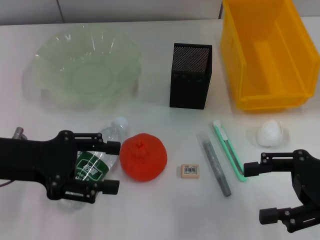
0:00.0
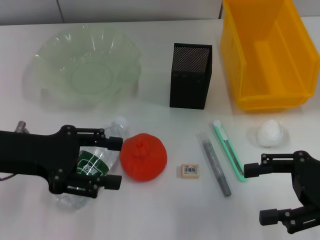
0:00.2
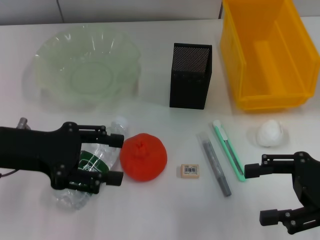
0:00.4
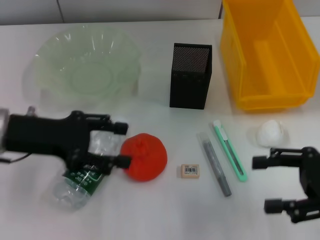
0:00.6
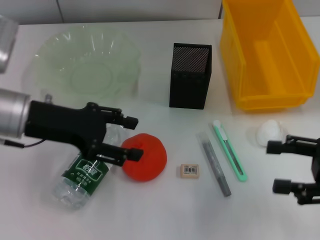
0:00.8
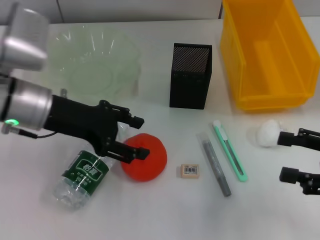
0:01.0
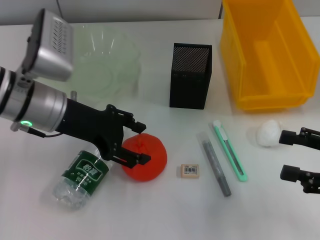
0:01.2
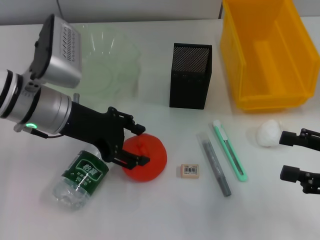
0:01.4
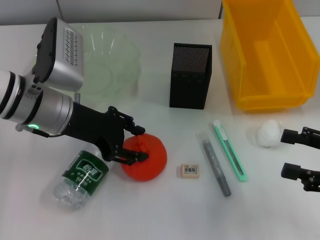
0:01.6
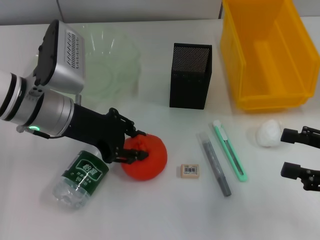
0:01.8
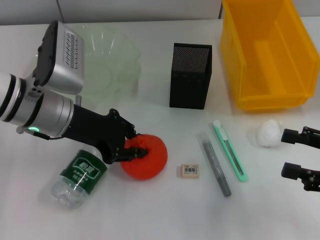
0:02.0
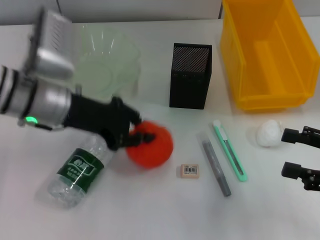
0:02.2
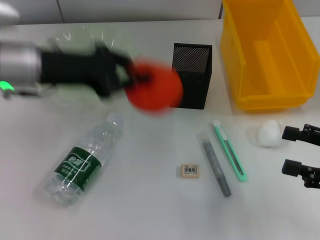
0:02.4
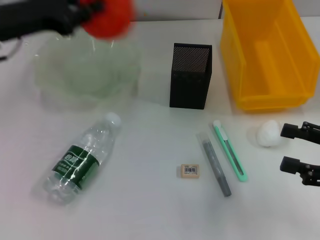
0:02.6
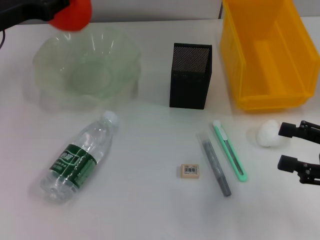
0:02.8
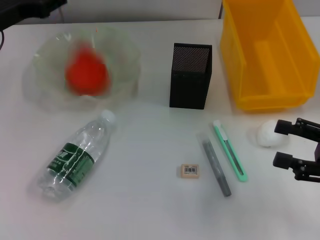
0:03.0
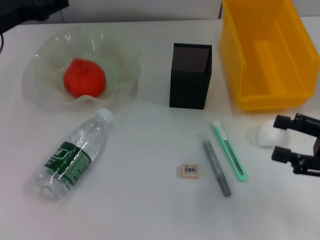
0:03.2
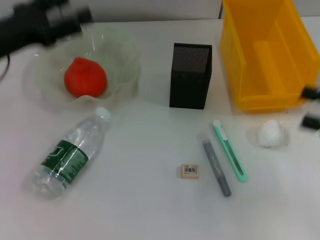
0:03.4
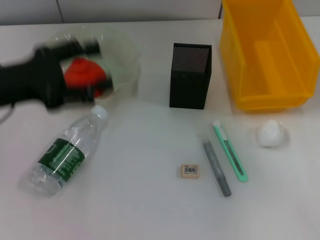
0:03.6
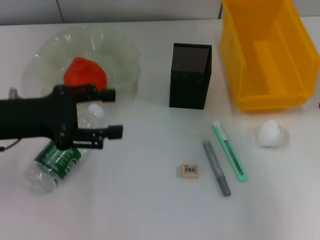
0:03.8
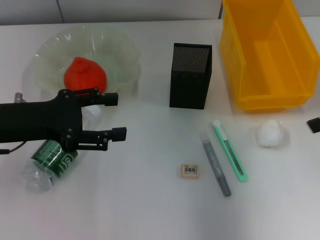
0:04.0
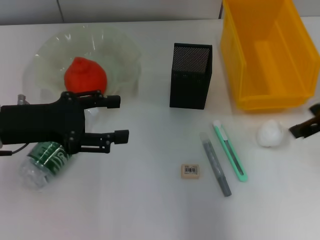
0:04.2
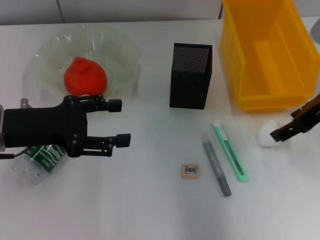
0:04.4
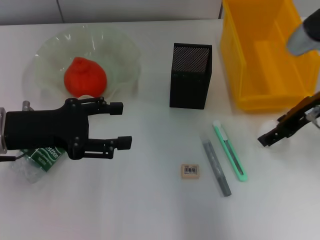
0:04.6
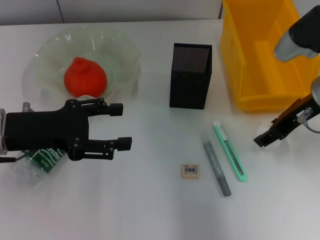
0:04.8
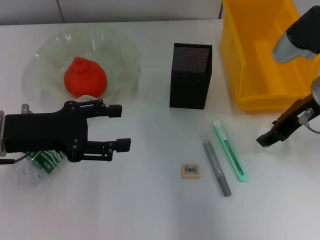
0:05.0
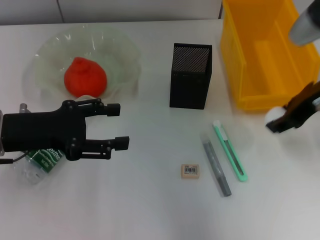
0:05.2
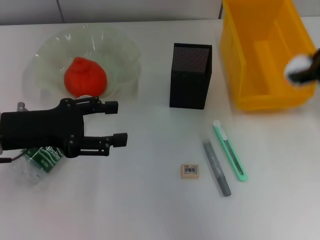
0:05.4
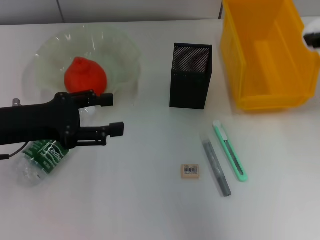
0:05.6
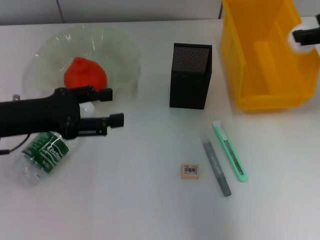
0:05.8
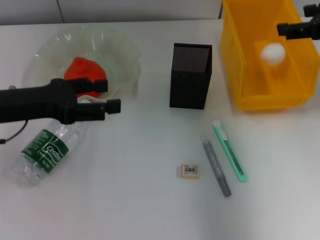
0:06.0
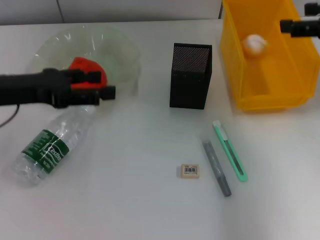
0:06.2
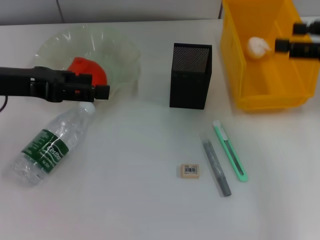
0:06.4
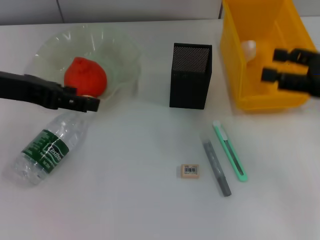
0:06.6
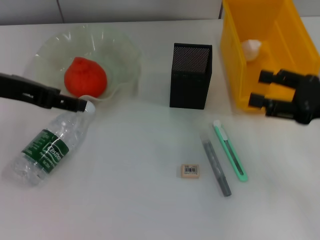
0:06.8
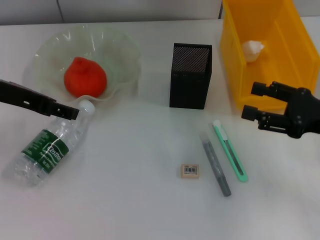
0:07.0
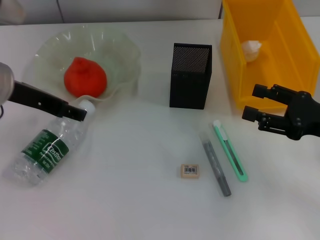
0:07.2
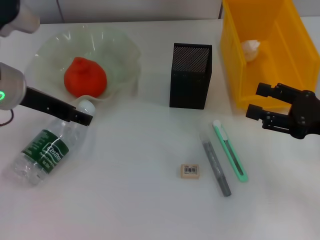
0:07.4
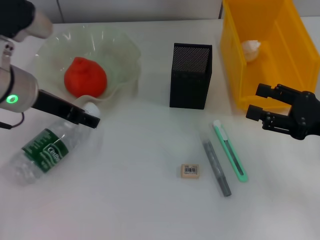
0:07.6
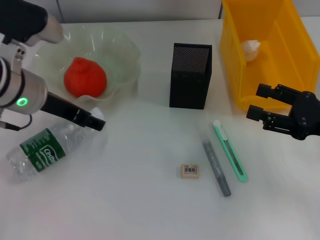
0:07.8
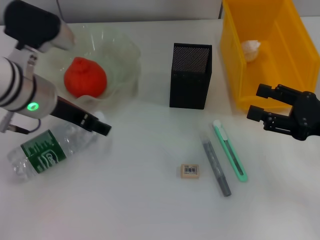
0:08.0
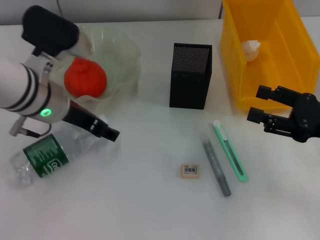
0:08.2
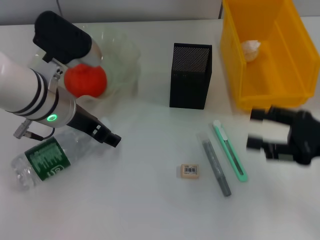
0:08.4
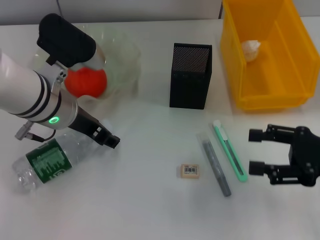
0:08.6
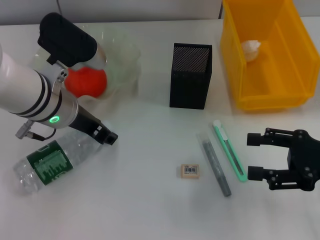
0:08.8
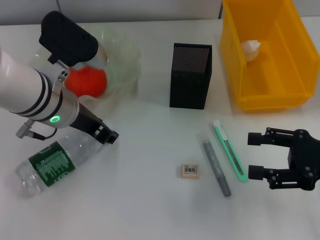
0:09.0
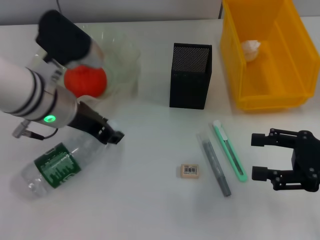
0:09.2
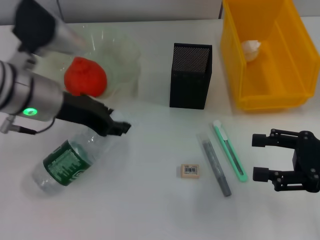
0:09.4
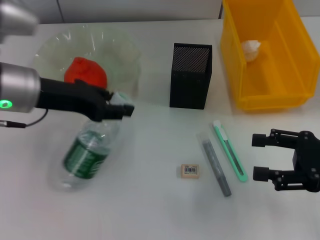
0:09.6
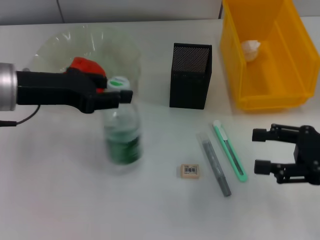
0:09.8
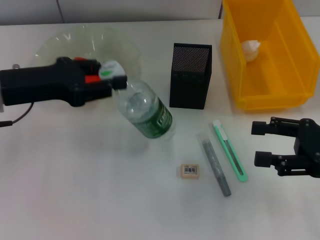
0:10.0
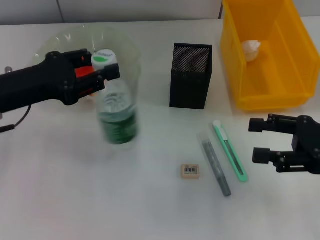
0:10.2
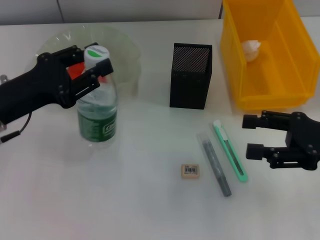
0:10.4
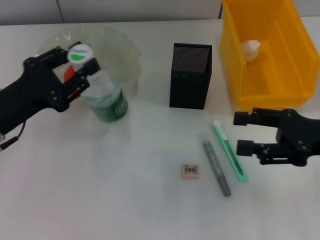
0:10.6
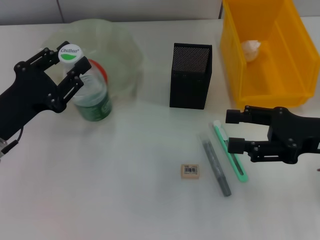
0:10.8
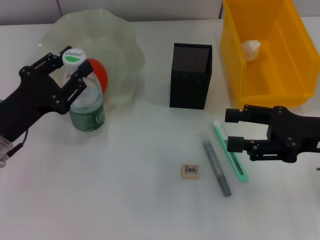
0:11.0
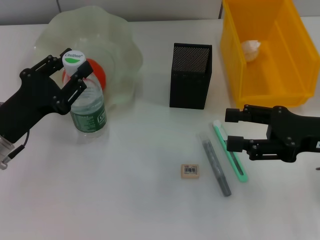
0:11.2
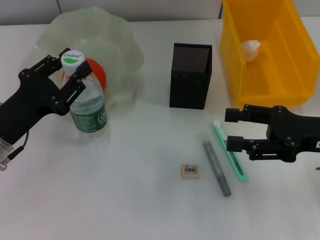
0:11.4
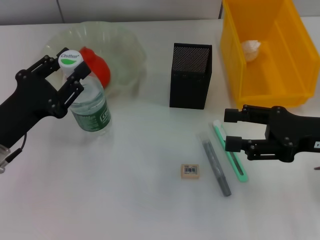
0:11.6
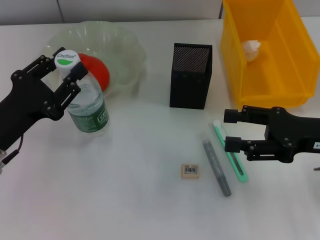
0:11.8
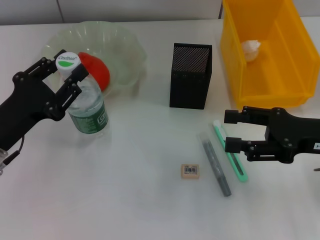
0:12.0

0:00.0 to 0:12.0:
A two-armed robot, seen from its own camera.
Step, 0:00.0 to 0:01.6: Grab the orange with the left hand.
Step, 0:01.8 to 0:03.2: Place the orange into the fruit bowl with the left hand.
Step, 0:03.6 to 0:04.8: Grab the paper ball with the right hand.
Step, 0:05.0 to 0:06.2: Place the paper ball into the trash can with the right hand.
Step, 0:06.6 to 0:08.8: Grab the water bottle with the left hand.
0:00.0 to 0:01.6: The left gripper moves to the right and forward, approximately 10 cm. The right gripper ends up some 5 cm from where it was.
0:01.6 to 0:03.0: The left gripper heads to the left, covering approximately 10 cm, and closes its fingers.
0:03.0 to 0:04.4: The left gripper shifts some 10 cm backward, and opens up, while the right gripper travels forward, upward and to the left by approximately 15 cm.
0:04.4 to 0:06.0: The right gripper goes some 5 cm upward.
0:06.0 to 0:07.6: The left gripper goes roughly 5 cm to the right, and moves about 10 cm upward and comes back, while the right gripper heads downward and backward, covering roughly 15 cm.
0:07.6 to 0:09.0: The left gripper heads to the right, covering roughly 5 cm, and closes up.
0:09.0 to 0:10.4: The left gripper is displaced to the left by some 10 cm.
0:10.4 to 0:12.0: The left gripper ends up roughly 5 cm from where it was.

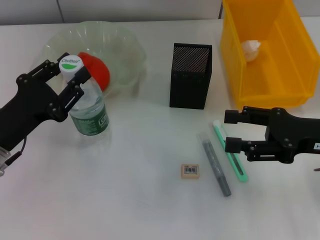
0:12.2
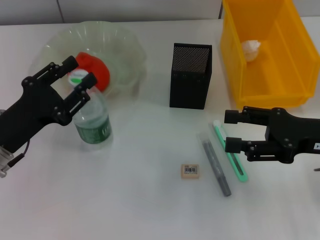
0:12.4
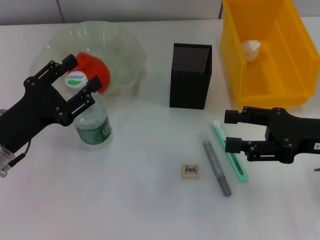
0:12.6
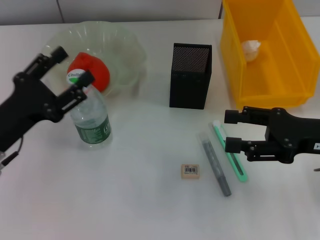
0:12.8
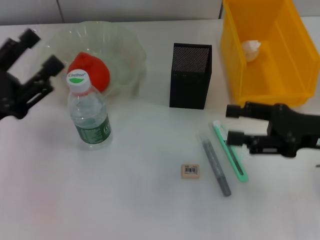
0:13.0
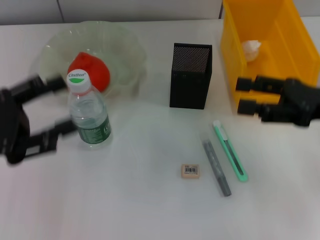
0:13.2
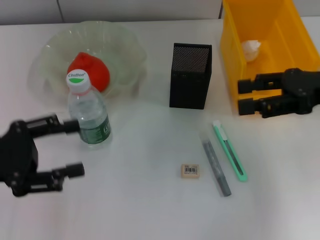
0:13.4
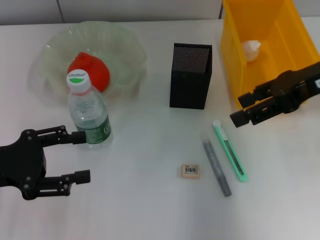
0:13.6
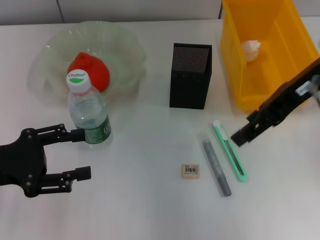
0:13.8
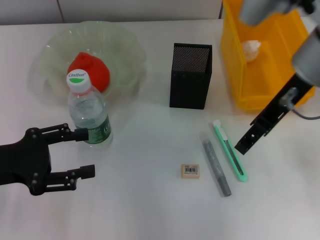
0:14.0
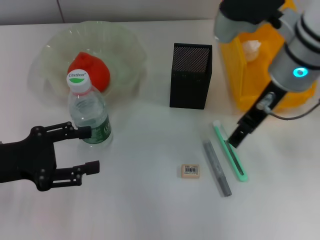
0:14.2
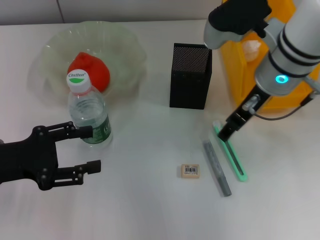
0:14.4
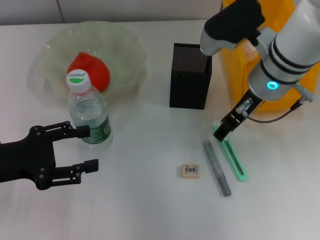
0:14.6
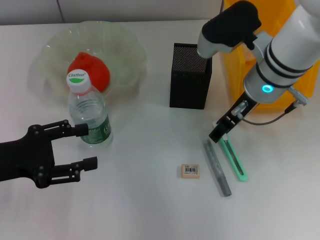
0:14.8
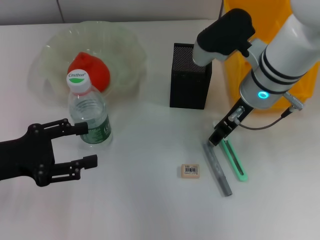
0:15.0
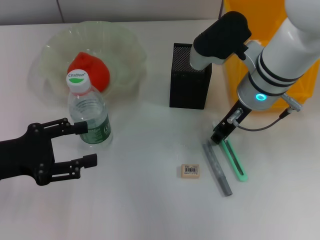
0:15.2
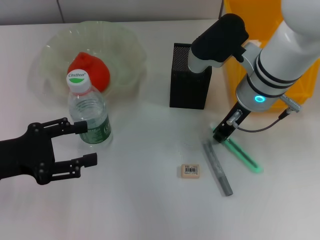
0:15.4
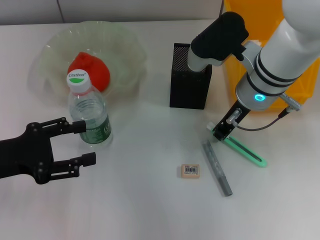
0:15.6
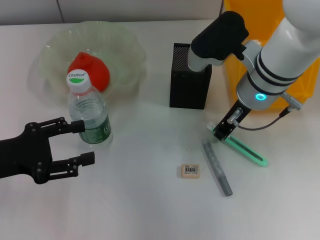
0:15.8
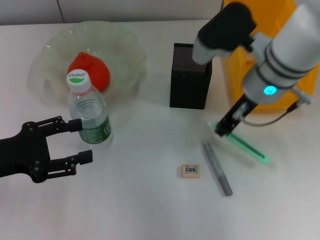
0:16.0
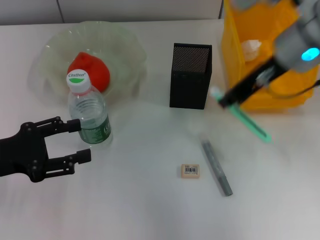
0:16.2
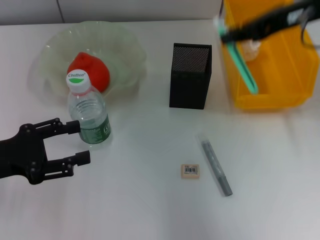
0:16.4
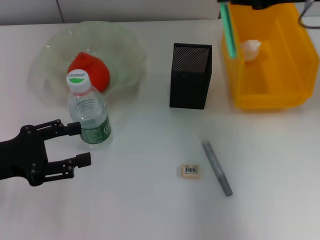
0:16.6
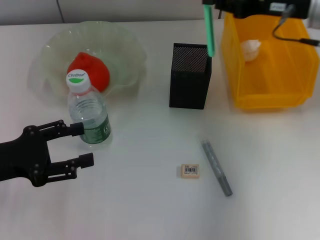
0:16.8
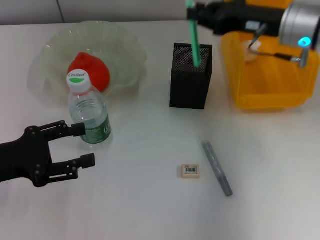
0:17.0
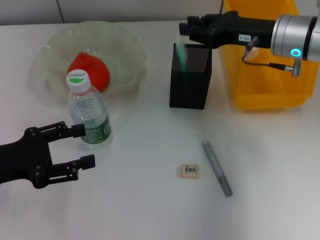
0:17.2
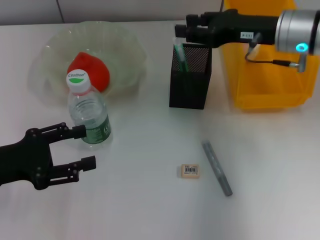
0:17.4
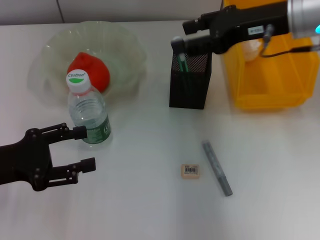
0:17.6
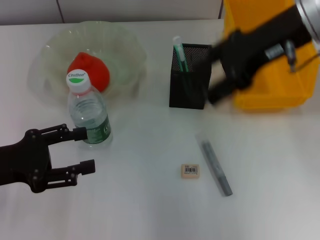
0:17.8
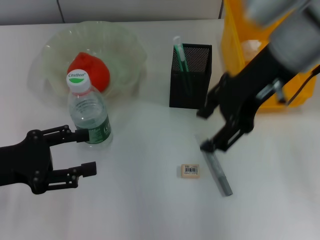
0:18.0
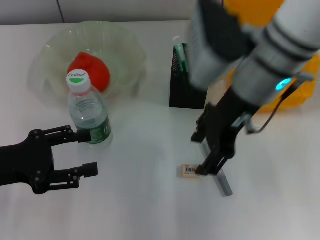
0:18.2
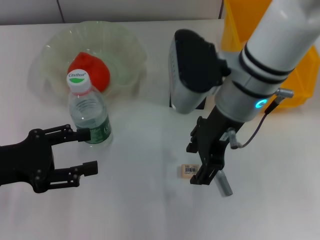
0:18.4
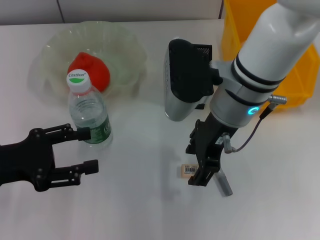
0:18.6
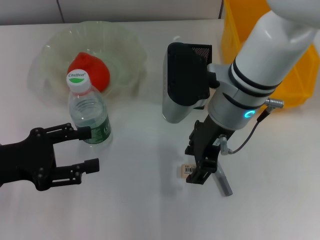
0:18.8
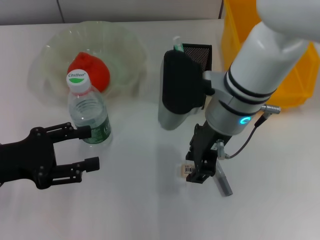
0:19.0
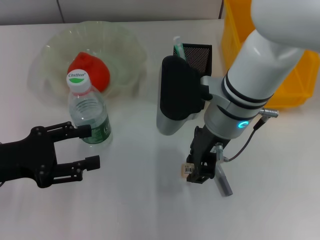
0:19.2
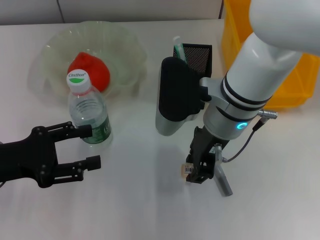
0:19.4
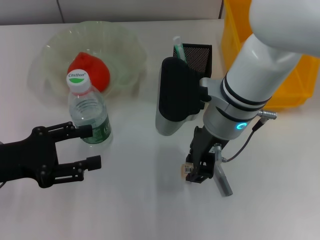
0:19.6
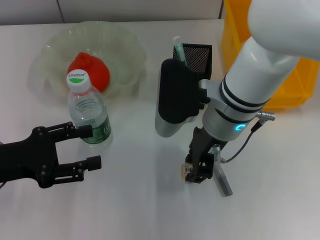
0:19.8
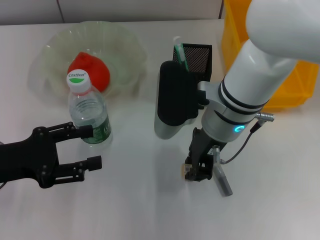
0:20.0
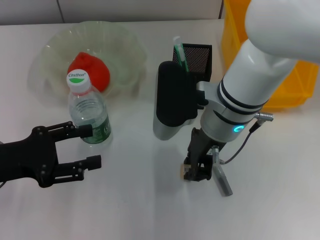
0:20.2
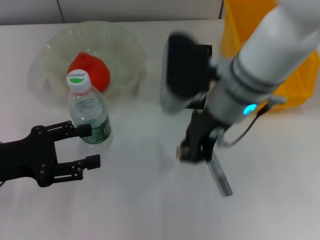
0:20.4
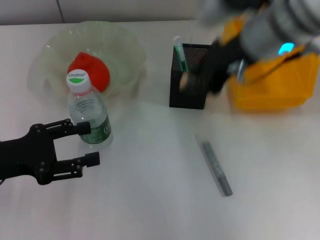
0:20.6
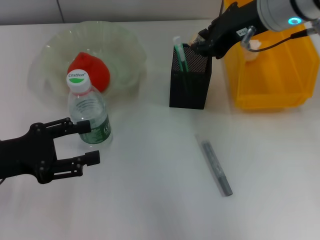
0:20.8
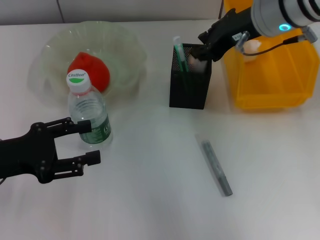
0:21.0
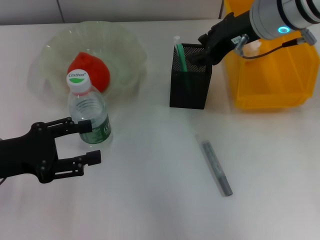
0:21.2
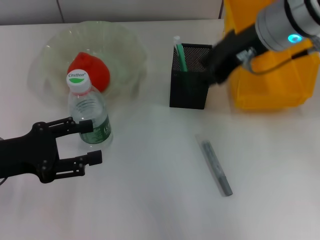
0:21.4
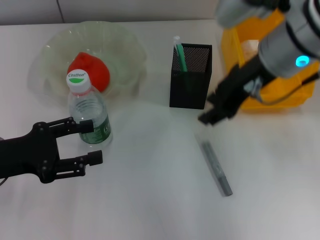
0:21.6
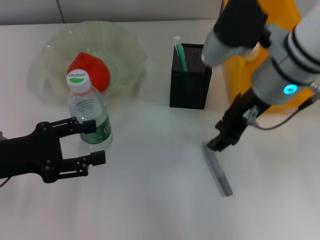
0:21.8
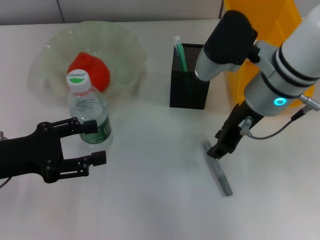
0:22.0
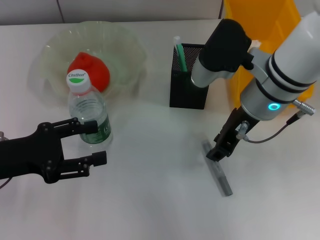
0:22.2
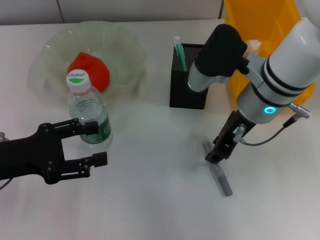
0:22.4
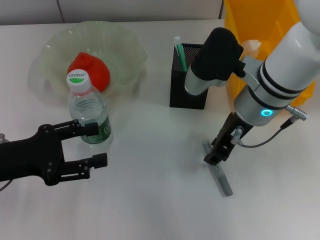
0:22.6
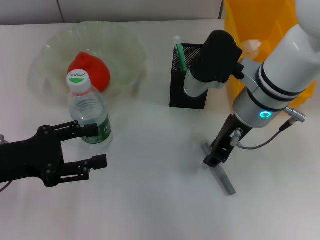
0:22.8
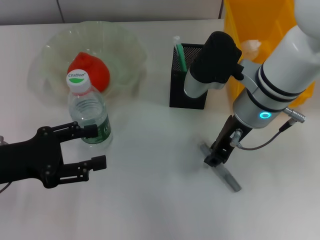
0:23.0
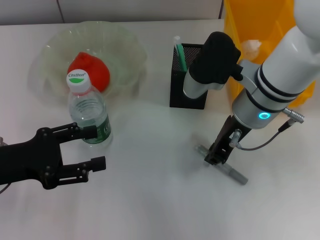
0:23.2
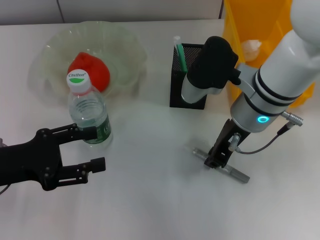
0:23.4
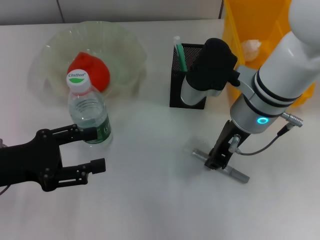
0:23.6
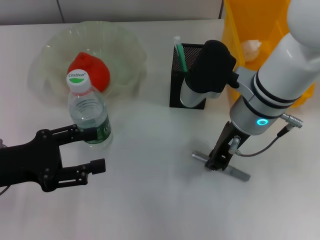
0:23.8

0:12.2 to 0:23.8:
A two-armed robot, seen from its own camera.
Step, 0:13.0 to 0:15.6: Grab the blue utility knife with the right hand.
Step, 0:15.8 to 0:19.4: Place the blue utility knife into the pen holder with the right hand.
Step, 0:19.6 to 0:20.2: Grab the eraser with the right hand.
Step, 0:20.4 to 0:22.6: Put the eraser into the pen holder with the right hand.
0:12.2 to 0:13.6: The left gripper ends up roughly 5 cm from where it was, and opens its fingers, while the right gripper travels upward and forward by roughly 15 cm.
0:13.6 to 0:15.0: The right gripper goes some 15 cm to the left and downward.
0:15.0 to 0:16.6: The right gripper heads to the right and upward, covering approximately 15 cm, and closes its fingers.
0:16.6 to 0:18.0: The right gripper shifts roughly 10 cm to the left, travels downward and back again, about 10 cm each way, and opens up.
0:18.0 to 0:19.4: The right gripper is displaced downward and to the left by some 10 cm, and closes up.
0:19.4 to 0:21.0: The right gripper goes roughly 15 cm upward, to the right and forward.
0:21.0 to 0:22.4: The right gripper is displaced downward and backward by some 10 cm.
0:22.4 to 0:23.8: The grippers stay close to where they were, moving slightly.
